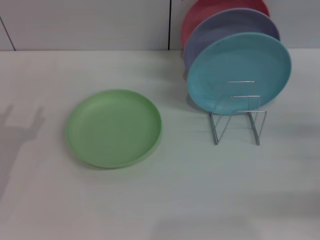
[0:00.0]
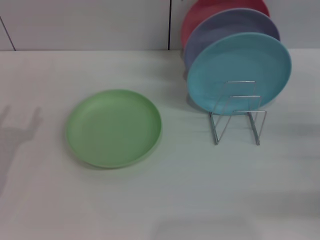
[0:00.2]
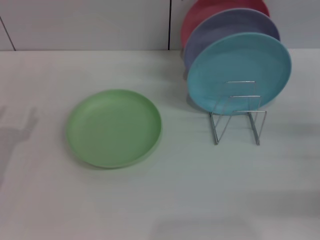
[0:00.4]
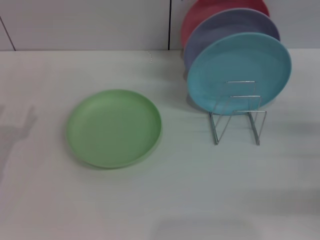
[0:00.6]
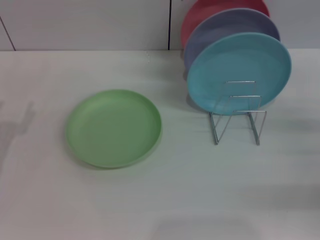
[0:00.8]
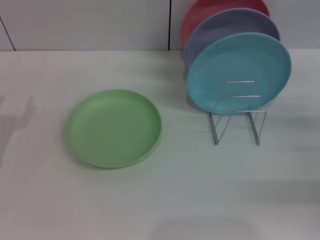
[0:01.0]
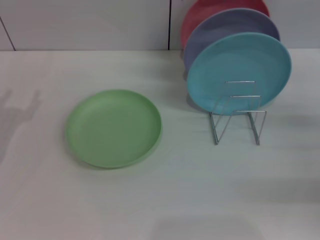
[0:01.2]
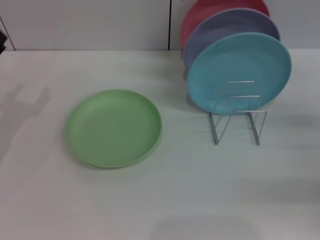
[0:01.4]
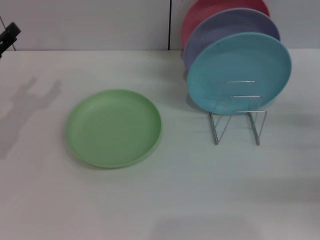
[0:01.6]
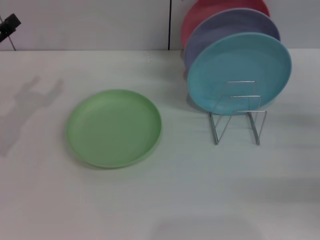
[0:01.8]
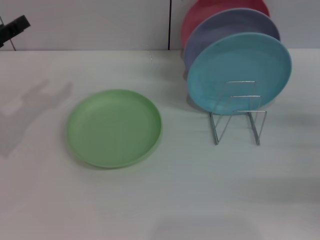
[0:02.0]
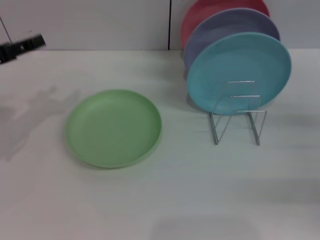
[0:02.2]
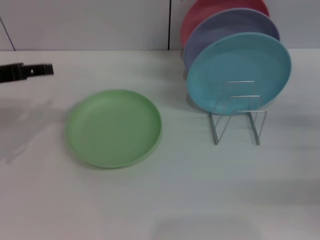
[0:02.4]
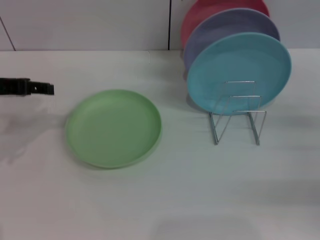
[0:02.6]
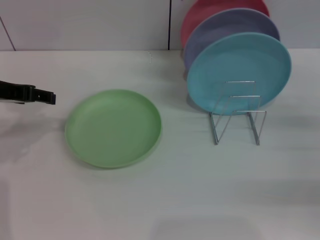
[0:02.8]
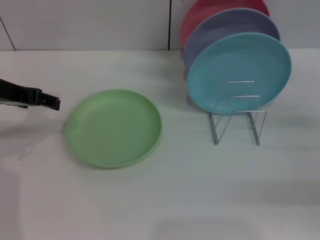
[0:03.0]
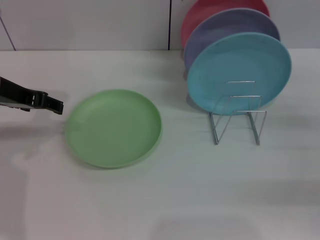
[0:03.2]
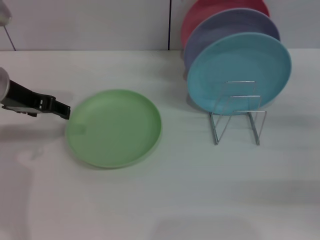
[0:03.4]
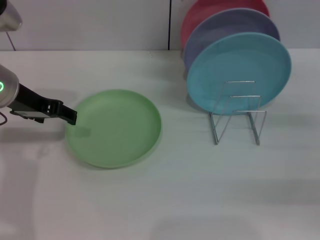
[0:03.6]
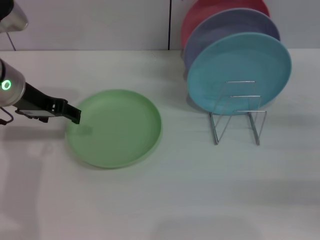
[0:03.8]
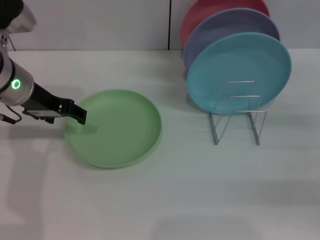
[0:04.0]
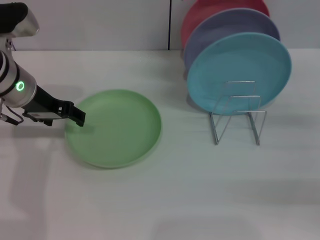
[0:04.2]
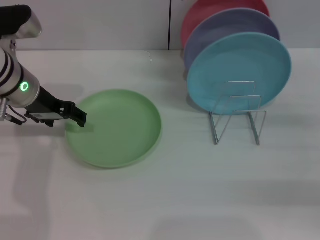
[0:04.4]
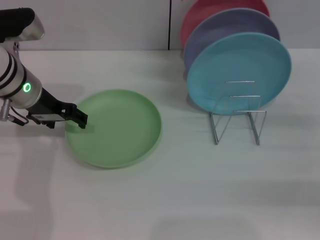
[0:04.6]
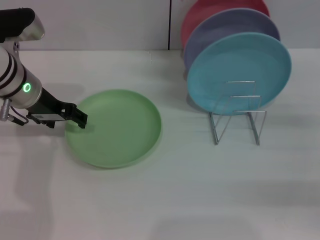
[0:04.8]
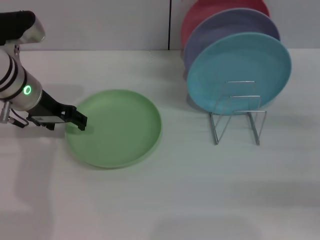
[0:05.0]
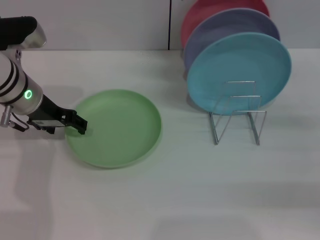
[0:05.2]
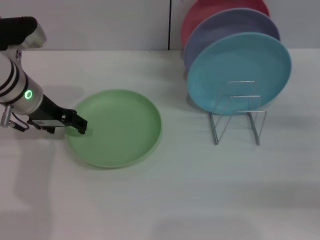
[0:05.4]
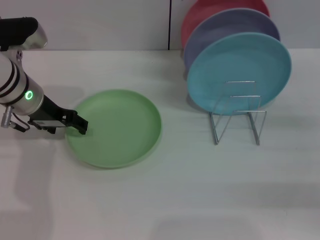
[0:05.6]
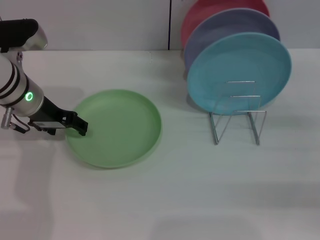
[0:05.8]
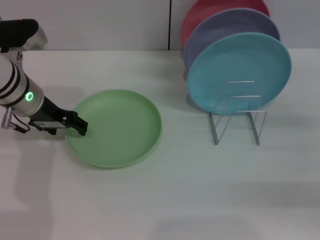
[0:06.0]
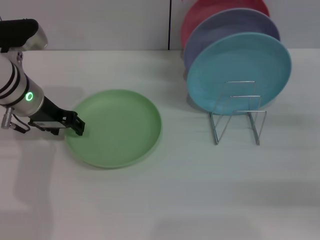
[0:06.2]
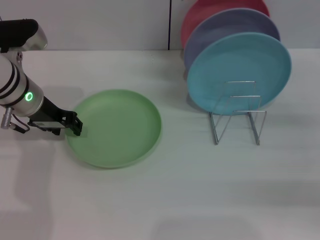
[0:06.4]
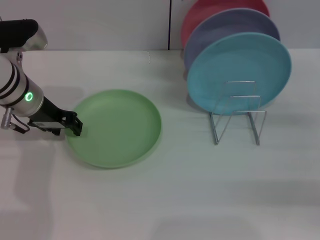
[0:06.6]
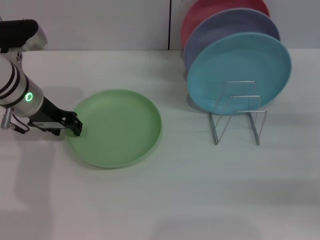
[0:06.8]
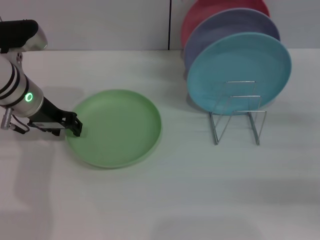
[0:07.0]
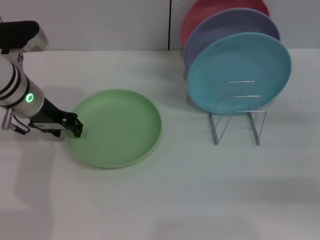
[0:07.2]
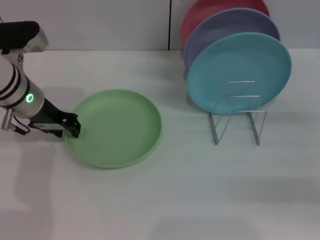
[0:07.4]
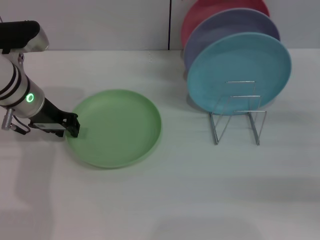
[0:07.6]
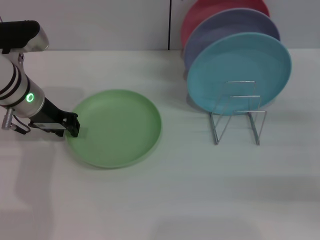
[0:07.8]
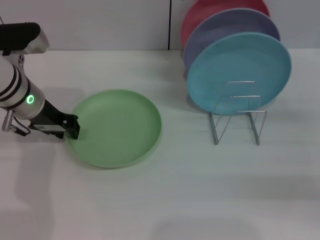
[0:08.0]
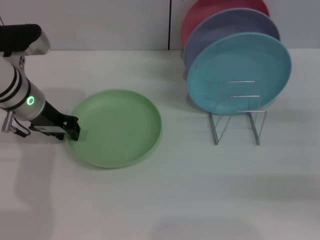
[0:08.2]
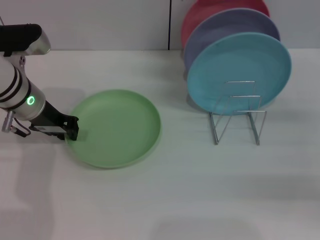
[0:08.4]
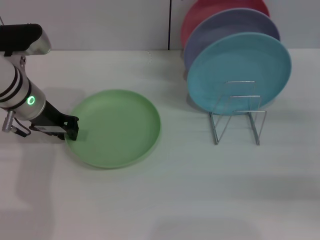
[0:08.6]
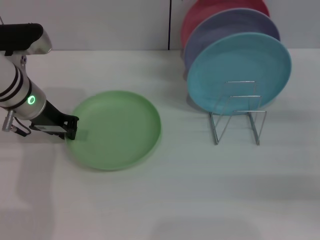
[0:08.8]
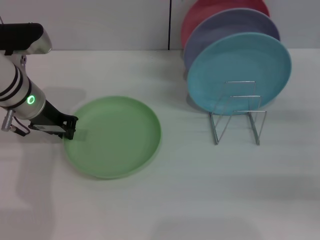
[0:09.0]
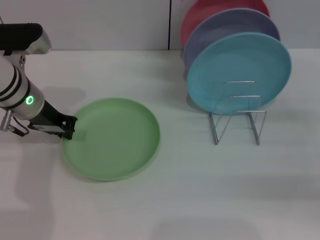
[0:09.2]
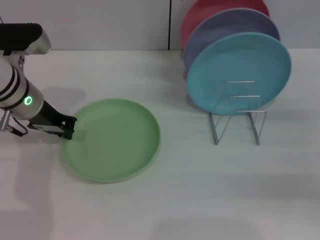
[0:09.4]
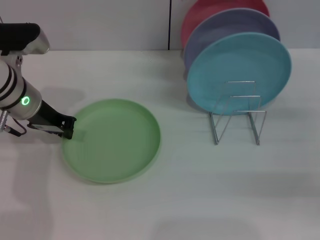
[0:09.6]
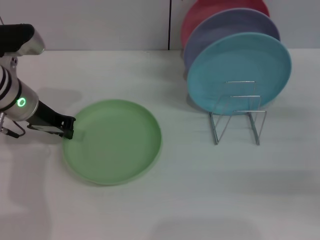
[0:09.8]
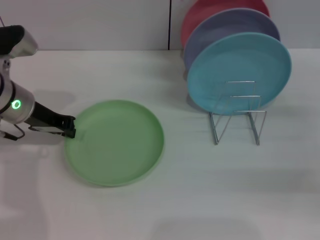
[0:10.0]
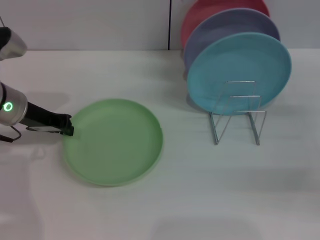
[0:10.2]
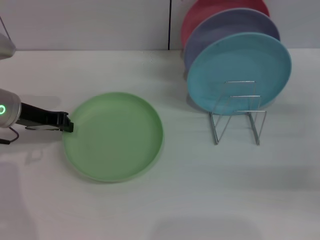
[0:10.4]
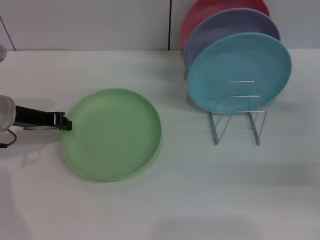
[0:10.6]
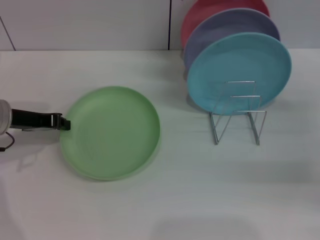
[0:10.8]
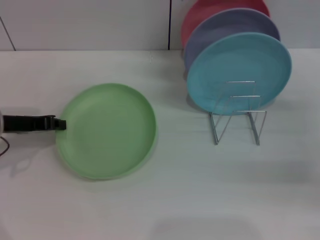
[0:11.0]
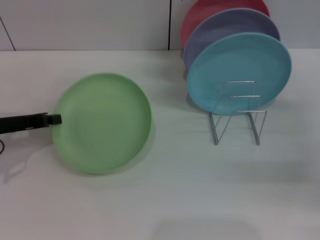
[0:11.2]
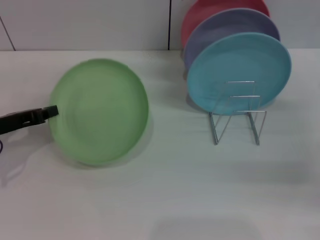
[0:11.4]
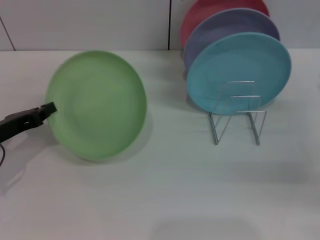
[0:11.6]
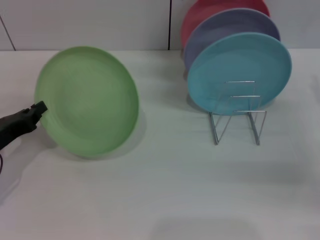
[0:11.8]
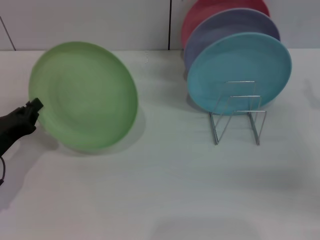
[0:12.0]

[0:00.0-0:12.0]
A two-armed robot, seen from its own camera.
Task of the whole recording: Grip the plate with one hand, pass it to the other, then set it on the shelf.
Step, 0:00.0 to 0:11.6: Pick up the plate with the left gripper.
0:01.6 to 0:03.0: The left gripper shifts some 10 cm upward and to the right.
0:03.0 to 0:04.4: The left gripper shifts approximately 5 cm to the right.
0:04.4 to 0:06.0: The grippers make only small movements.
0:06.0 to 0:07.6: The left gripper closes up.
0:07.6 to 0:09.0: The left gripper closes.
0:09.0 to 0:10.4: The left gripper travels to the left by some 5 cm.
0:10.4 to 0:12.0: The left gripper is displaced backward and downward by roughly 15 cm.

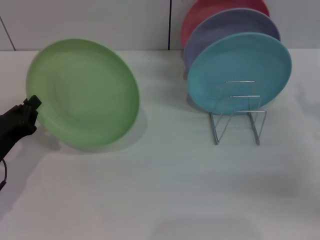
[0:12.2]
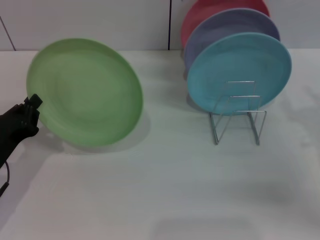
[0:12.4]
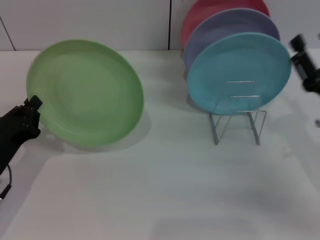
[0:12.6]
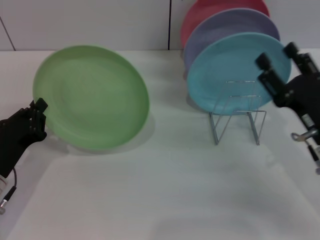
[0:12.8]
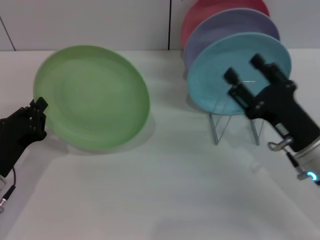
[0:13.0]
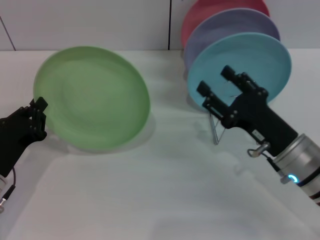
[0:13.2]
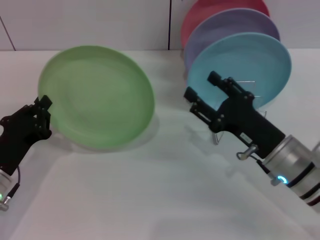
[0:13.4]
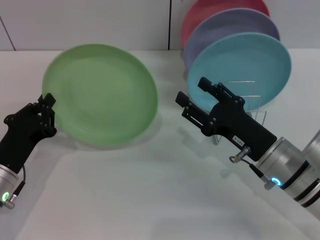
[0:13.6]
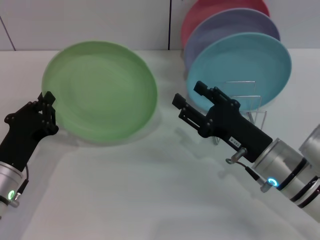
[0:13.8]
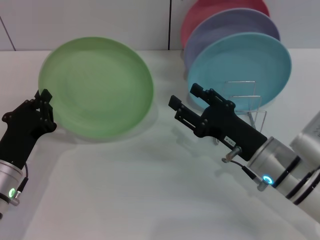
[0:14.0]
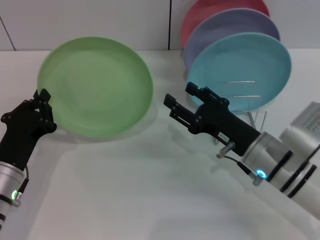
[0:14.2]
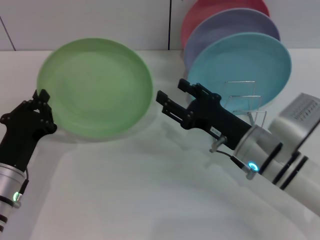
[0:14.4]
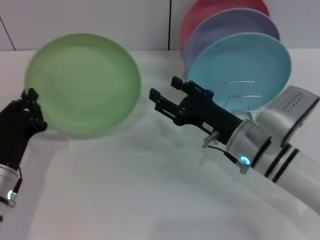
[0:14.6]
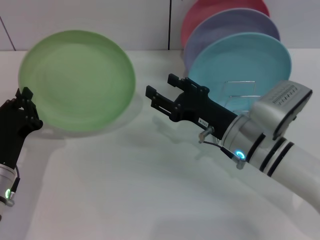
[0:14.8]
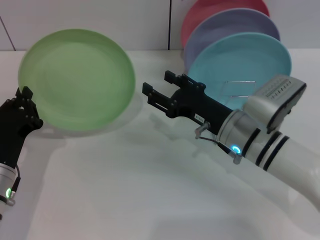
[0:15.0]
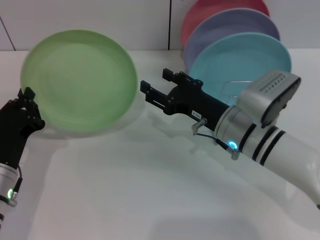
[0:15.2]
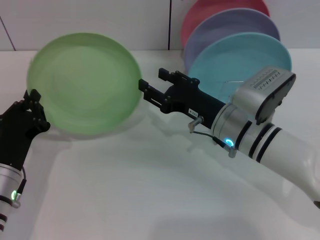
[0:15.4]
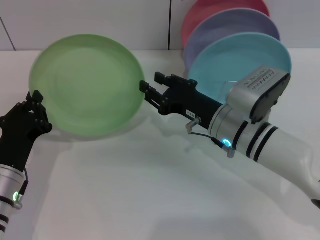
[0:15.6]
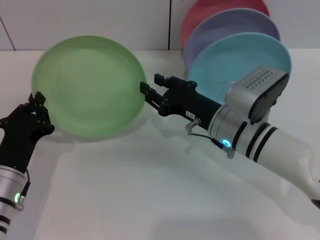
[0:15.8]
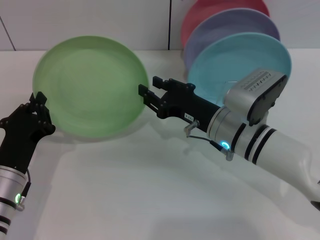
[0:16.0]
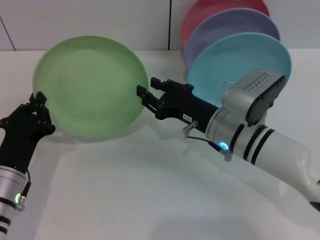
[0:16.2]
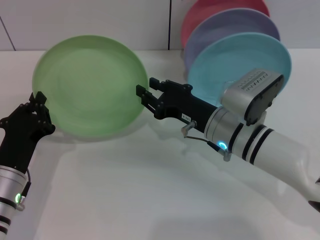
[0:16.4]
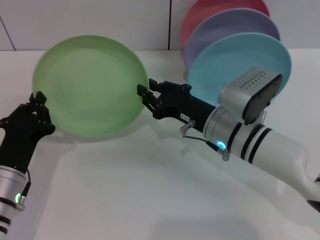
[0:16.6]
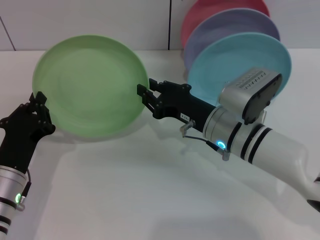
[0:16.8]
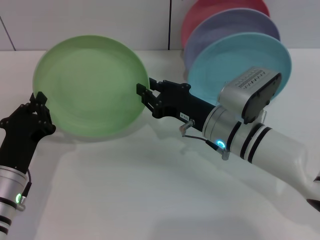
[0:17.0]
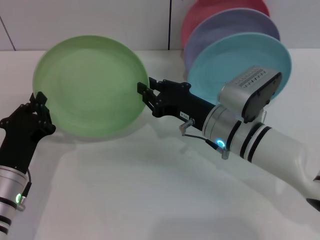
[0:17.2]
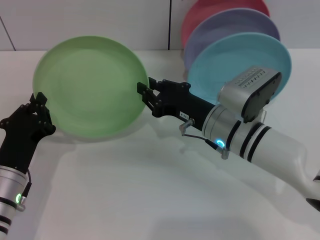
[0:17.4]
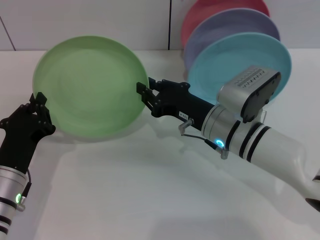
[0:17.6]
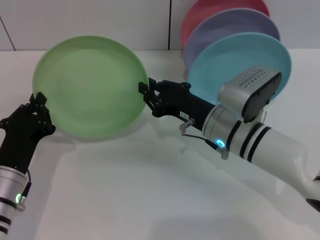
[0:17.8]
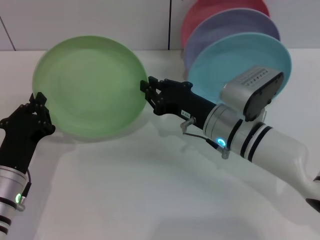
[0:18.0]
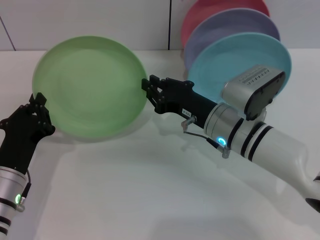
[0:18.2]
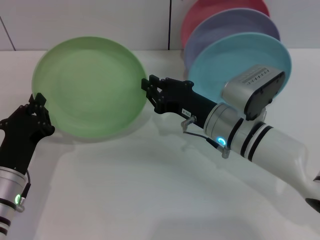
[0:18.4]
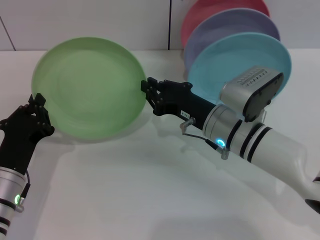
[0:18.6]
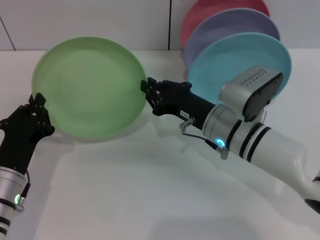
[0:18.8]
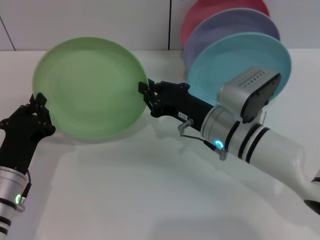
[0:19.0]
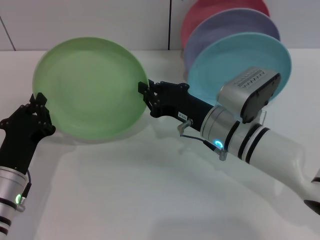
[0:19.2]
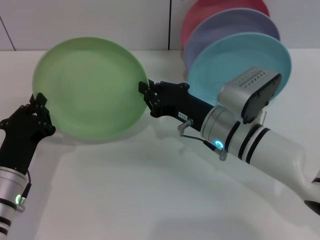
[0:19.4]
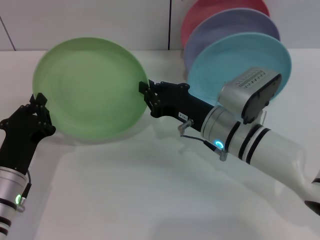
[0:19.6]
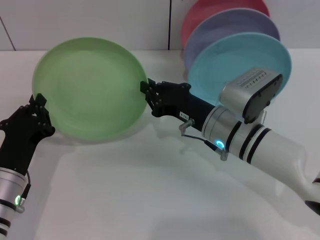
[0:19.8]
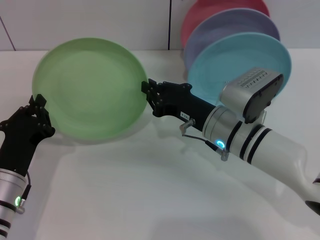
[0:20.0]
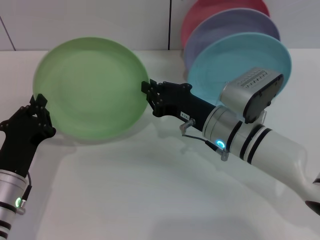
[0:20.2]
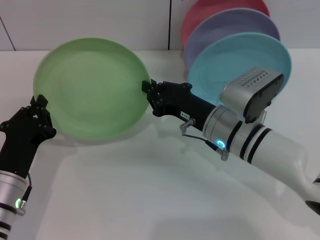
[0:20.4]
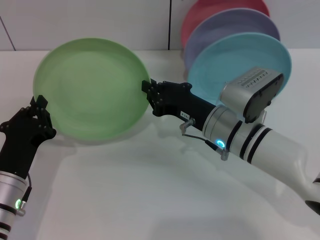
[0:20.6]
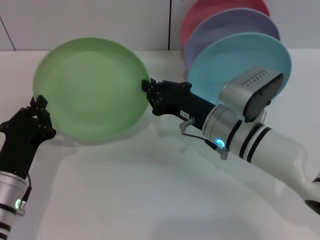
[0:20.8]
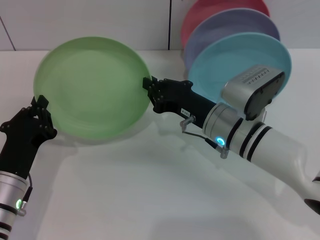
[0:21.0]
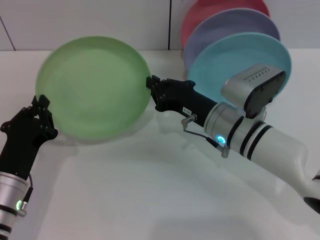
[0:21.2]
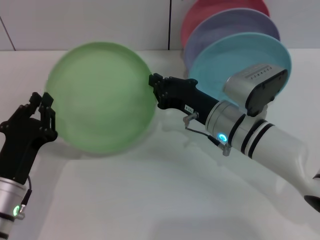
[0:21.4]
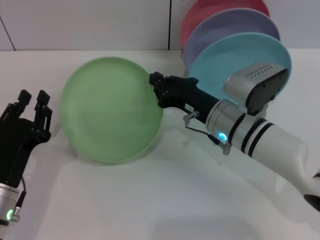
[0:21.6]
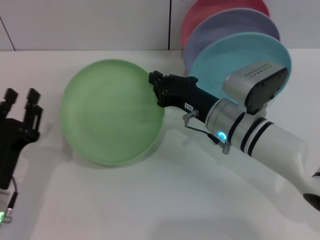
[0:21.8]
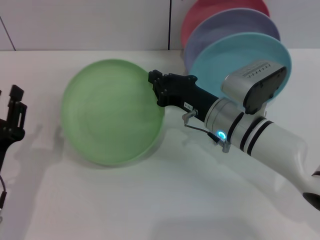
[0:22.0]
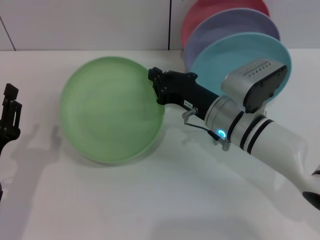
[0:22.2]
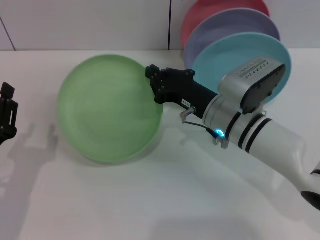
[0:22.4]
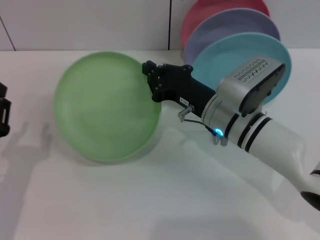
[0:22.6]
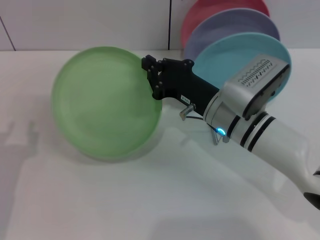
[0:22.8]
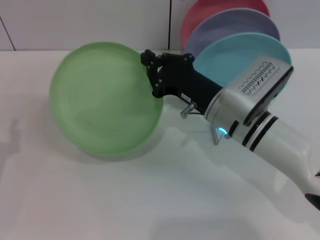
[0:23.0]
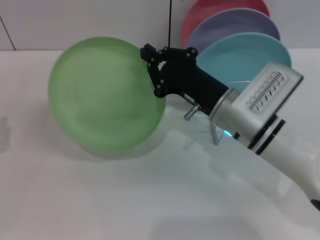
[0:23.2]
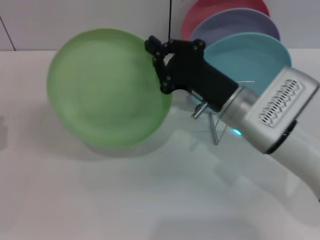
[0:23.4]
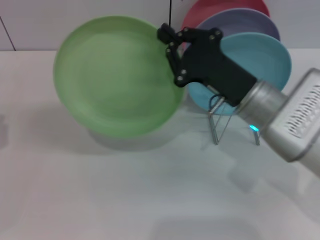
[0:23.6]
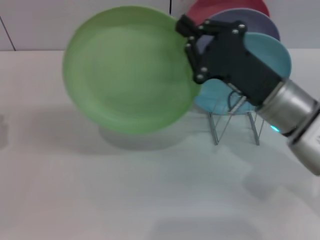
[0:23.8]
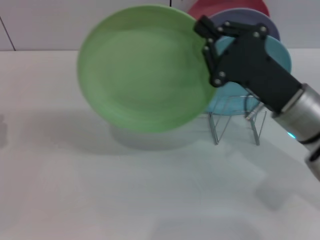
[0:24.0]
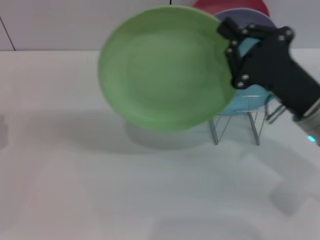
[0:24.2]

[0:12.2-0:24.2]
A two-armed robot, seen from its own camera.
Task of the whole recording: Grip the plate with one hand, pass it to the other, then set it on the shelf.
Step, 0:12.2 to 0:22.4: Pass the plate from the left gripper to the right gripper.
0:12.2 to 0:13.8: The right gripper heads to the left, covering some 15 cm.
0:13.8 to 0:15.2: The right gripper shifts some 5 cm forward.
0:15.2 to 0:16.6: The right gripper closes up.
0:16.6 to 0:21.2: Neither gripper changes place.
0:21.2 to 0:22.6: The left gripper opens its fingers.
0:22.6 to 0:24.2: The right gripper is displaced to the right by about 10 cm; the left gripper travels to the left by about 5 cm.
